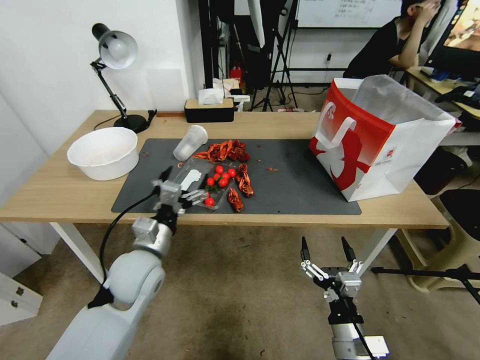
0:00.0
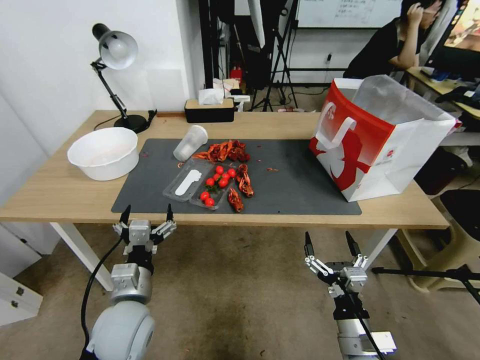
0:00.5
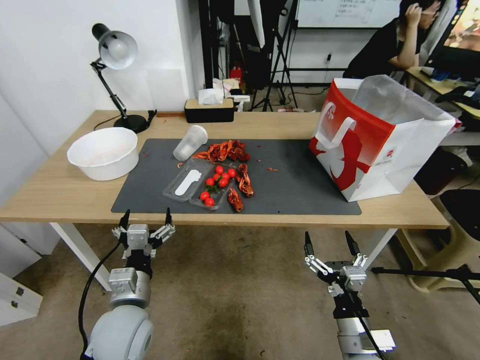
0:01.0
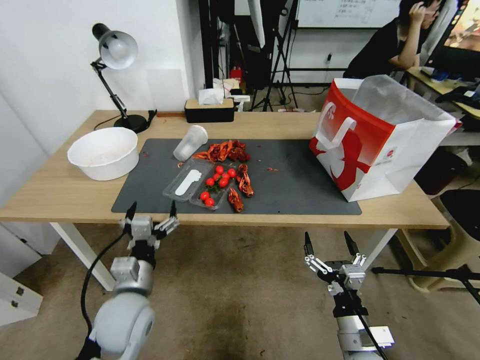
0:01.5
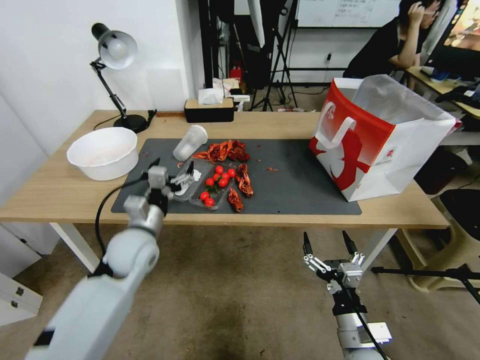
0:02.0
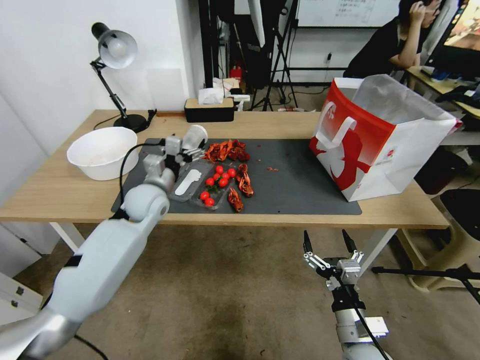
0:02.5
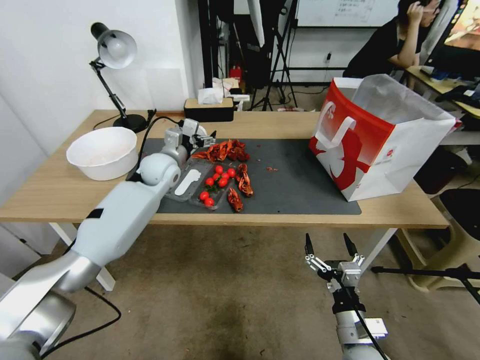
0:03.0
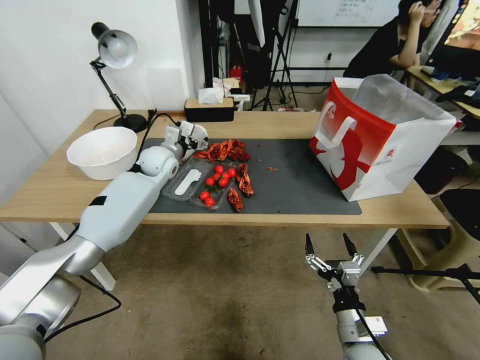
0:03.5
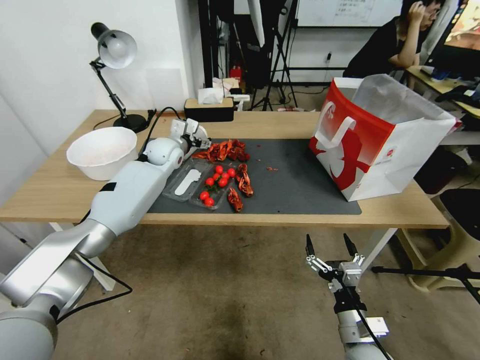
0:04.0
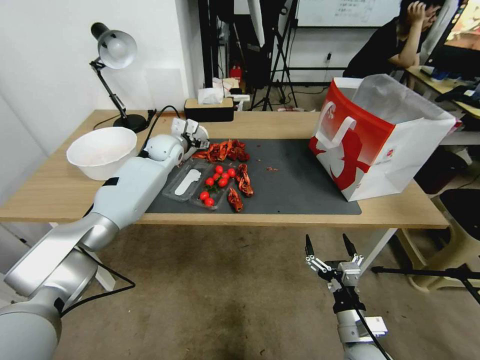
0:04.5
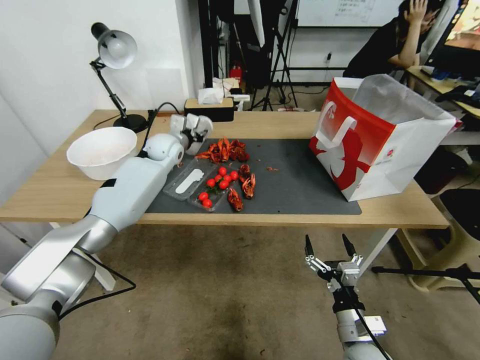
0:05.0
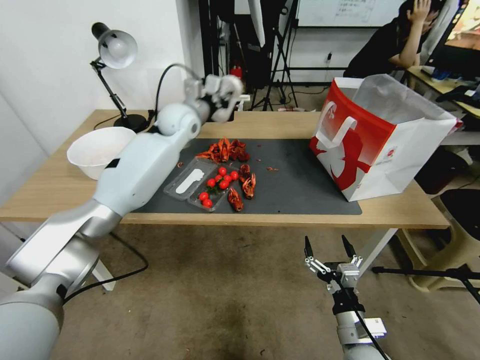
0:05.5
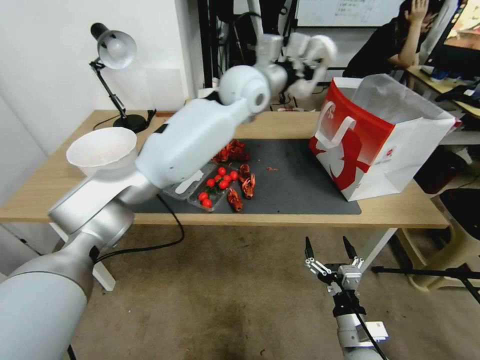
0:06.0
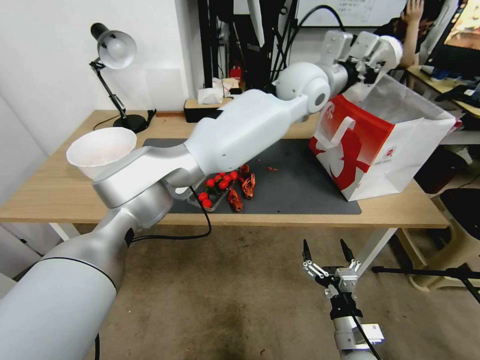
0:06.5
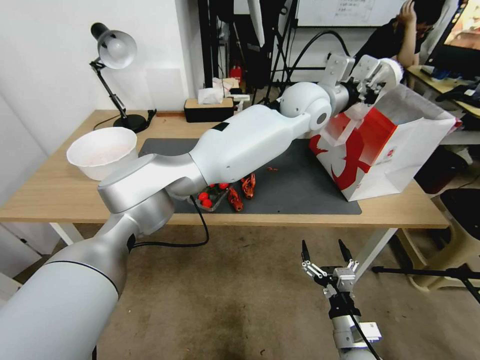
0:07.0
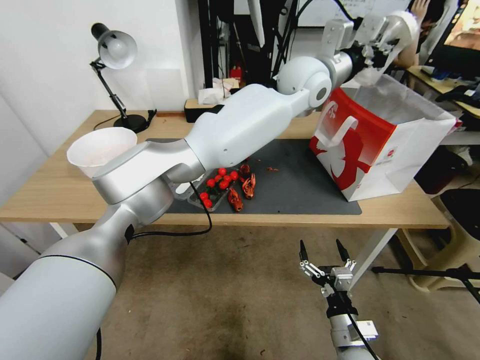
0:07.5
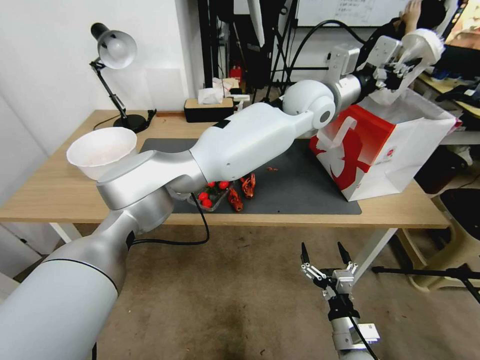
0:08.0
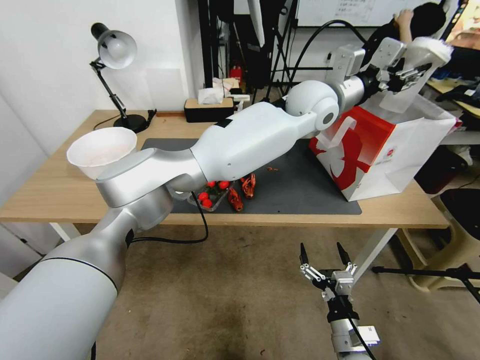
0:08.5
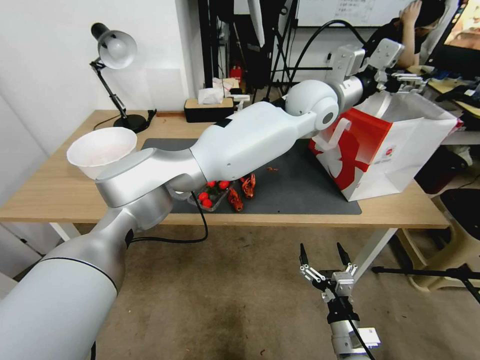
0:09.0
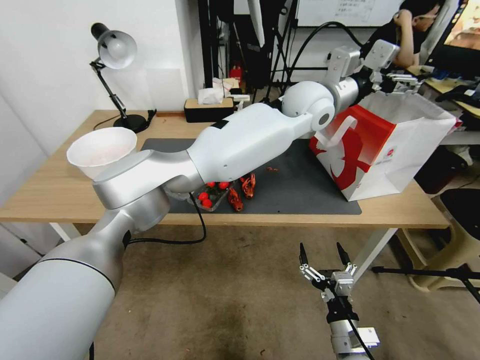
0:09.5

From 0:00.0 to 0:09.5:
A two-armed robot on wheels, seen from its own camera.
From 0:00.0 to 0:02.0: The left gripper shifts about 5 cm forward.
From 0:02.0 to 0:04.0: The left gripper travels forward by about 25 cm.
From 0:04.0 to 0:05.5: The left gripper shifts about 10 cm upward, and closes its fingers.
From 0:05.5 to 0:07.5: The left gripper moves to the right, about 30 cm.
From 0:07.5 to 0:09.5: The left gripper opens.

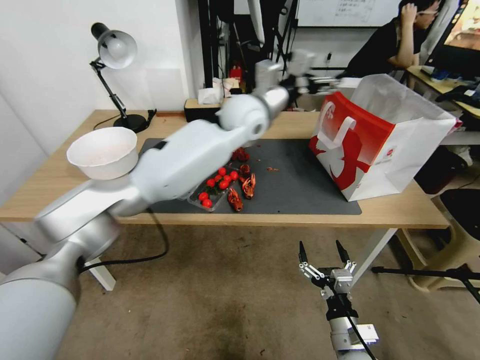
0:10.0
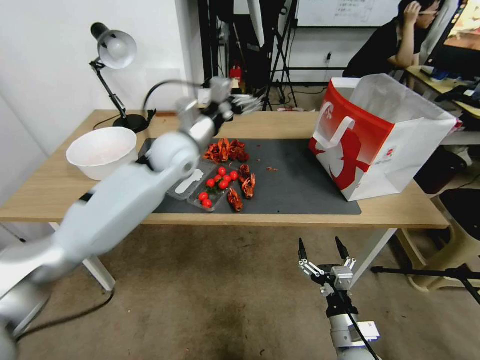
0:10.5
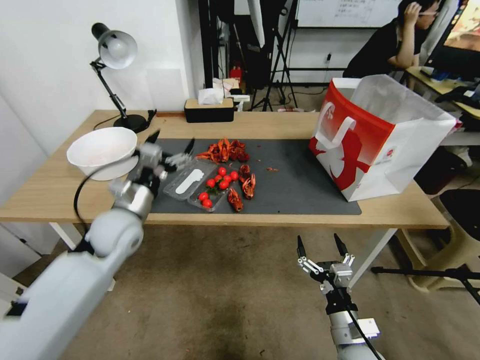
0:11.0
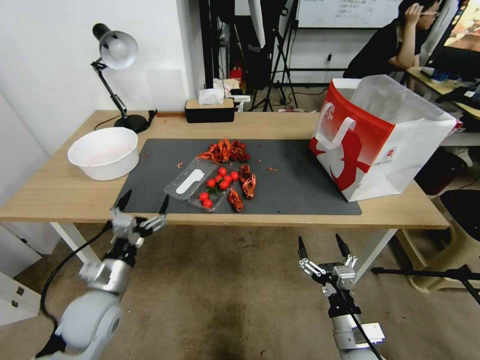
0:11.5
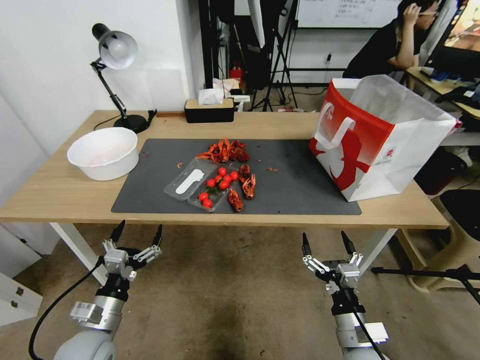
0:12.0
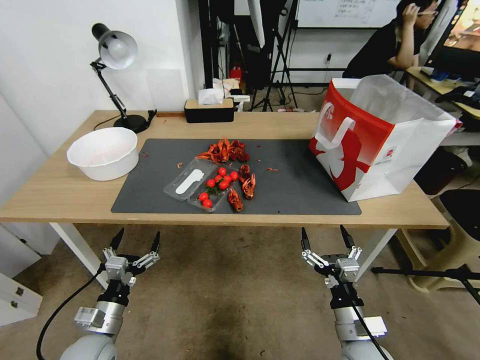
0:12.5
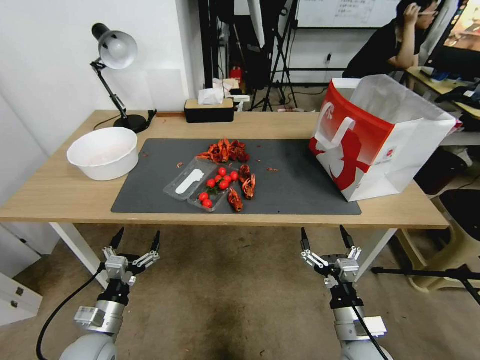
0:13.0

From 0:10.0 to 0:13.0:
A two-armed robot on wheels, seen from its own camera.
From 0:10.0 to 0:11.5: The left gripper travels to the left, backward and downward by roughly 60 cm.
From 0:11.5 to 0:13.0: The left gripper travels downward and backward by about 10 cm.

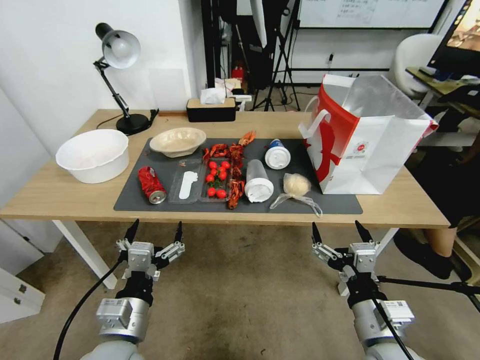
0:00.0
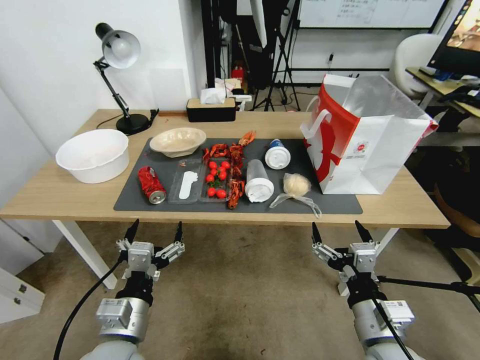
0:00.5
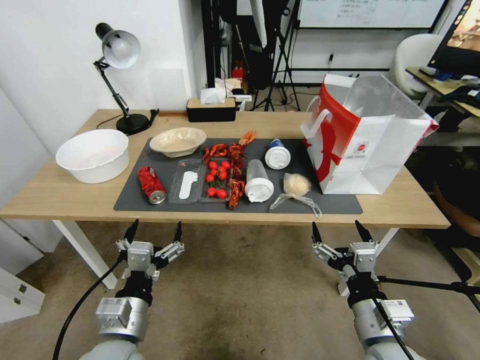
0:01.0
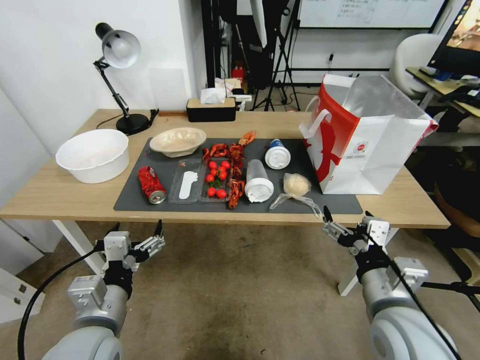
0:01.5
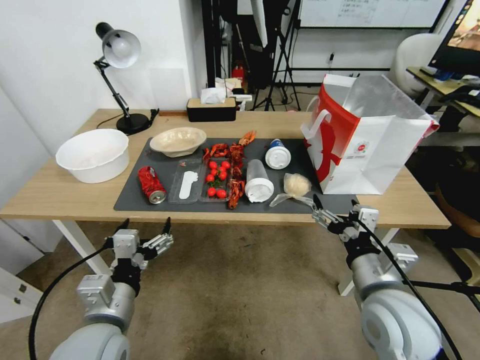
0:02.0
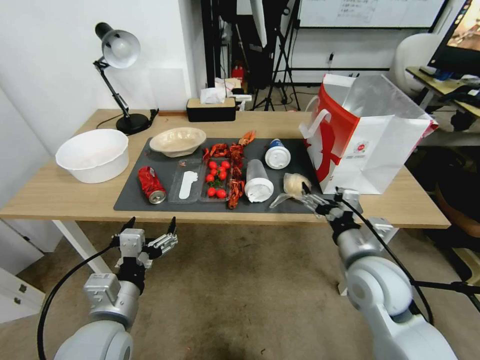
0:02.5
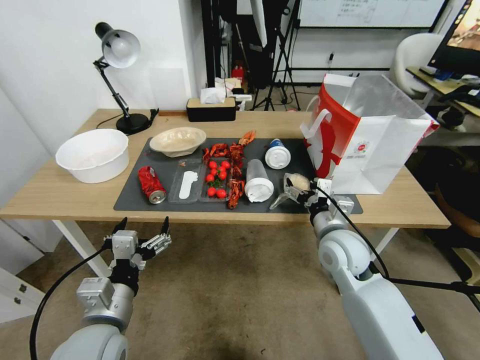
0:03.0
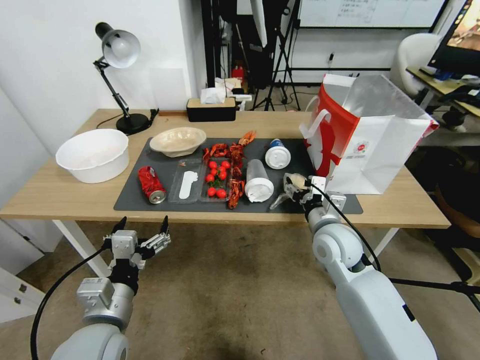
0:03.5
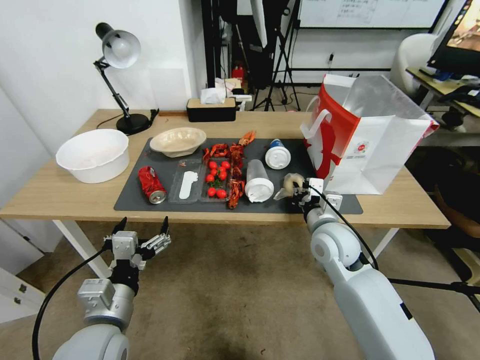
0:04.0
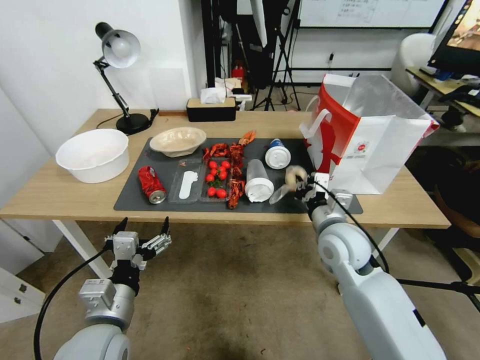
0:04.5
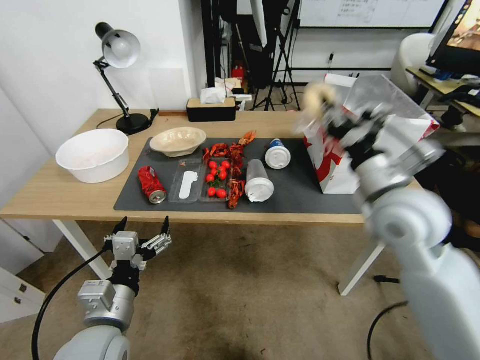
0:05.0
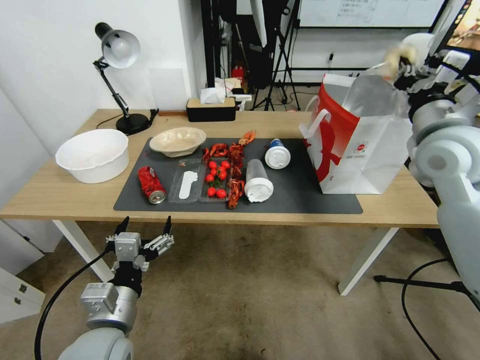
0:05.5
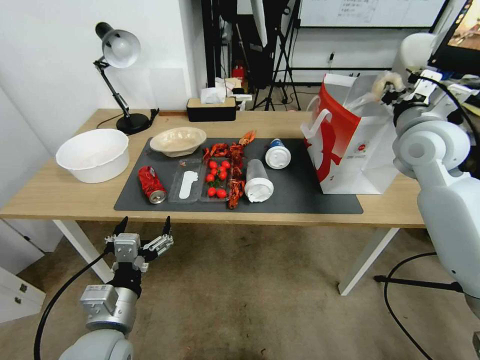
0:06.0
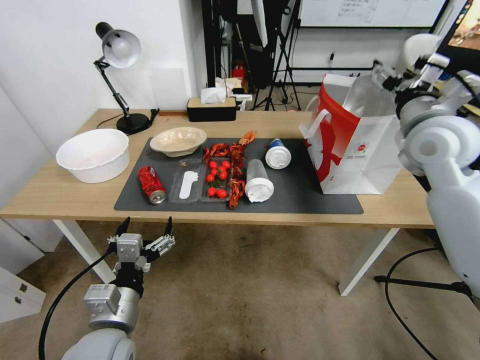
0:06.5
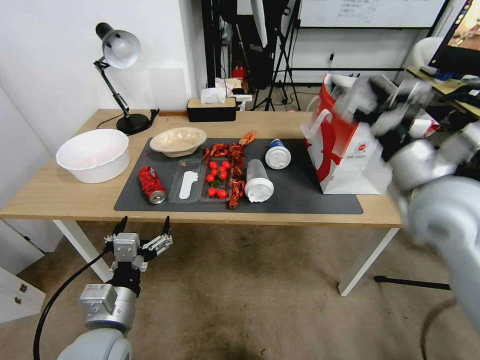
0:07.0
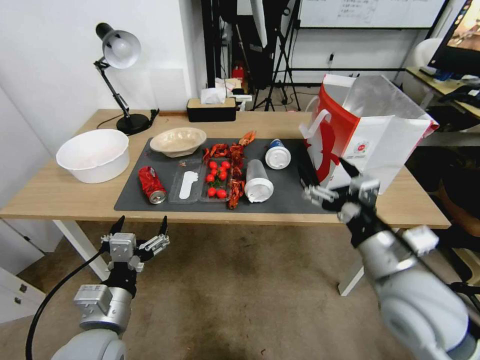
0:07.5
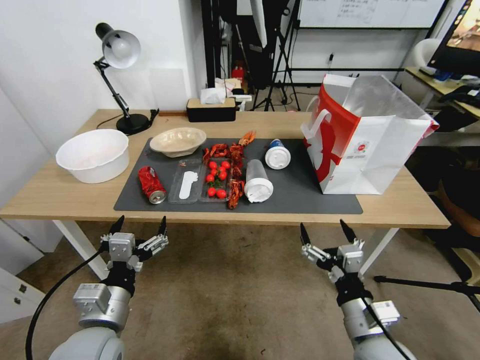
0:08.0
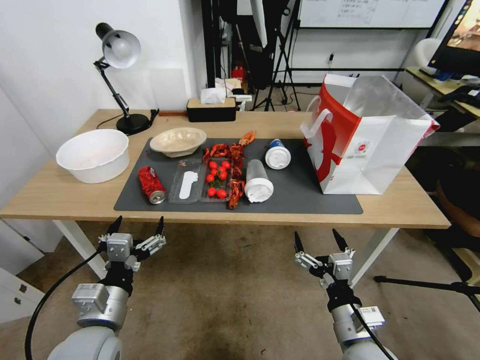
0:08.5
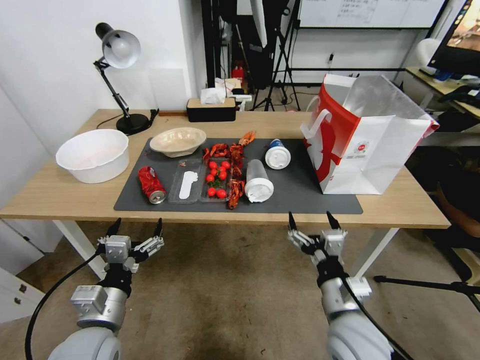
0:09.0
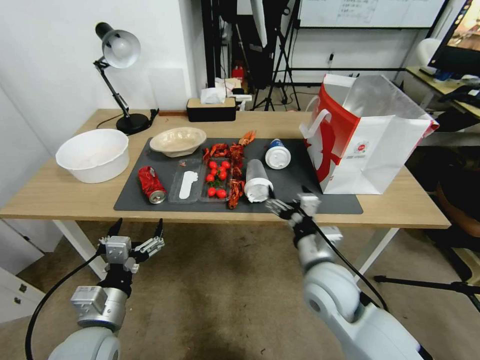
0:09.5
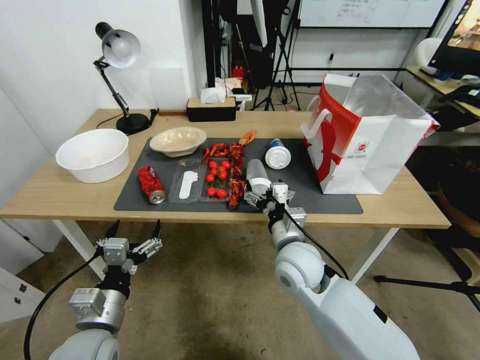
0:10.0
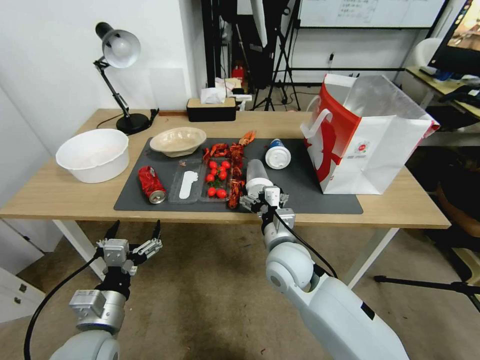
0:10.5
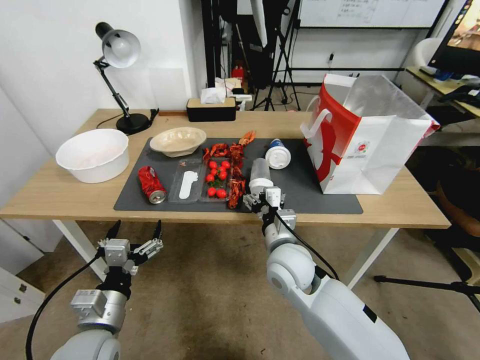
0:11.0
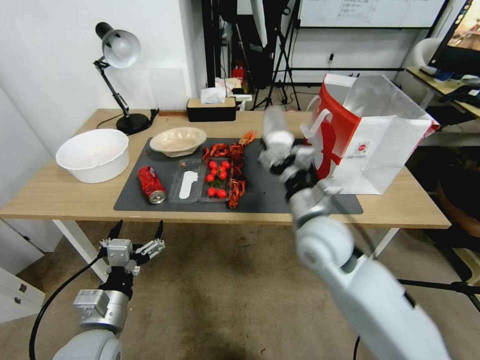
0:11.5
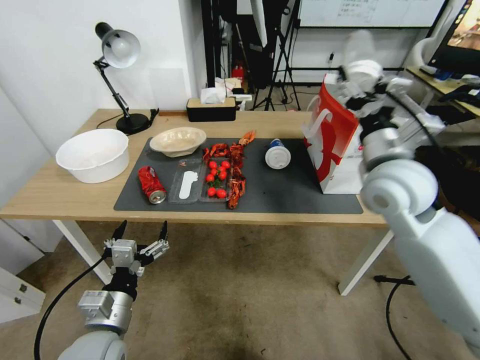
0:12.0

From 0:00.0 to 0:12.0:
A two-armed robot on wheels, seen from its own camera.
From 0:02.0 to 0:04.0: The right gripper is displaced forward by some 15 cm, and closes up.
From 0:04.0 to 0:06.0: The right gripper heads upward and to the right, covering about 25 cm.
From 0:06.0 to 0:08.0: The right gripper moves backward and downward, about 35 cm, and opens up.
From 0:08.0 to 0:10.0: The right gripper travels forward and to the left by about 20 cm.
From 0:10.0 to 0:12.0: The right gripper heads upward and to the right, covering approximately 25 cm.

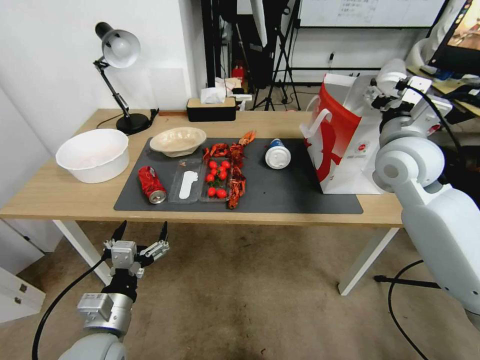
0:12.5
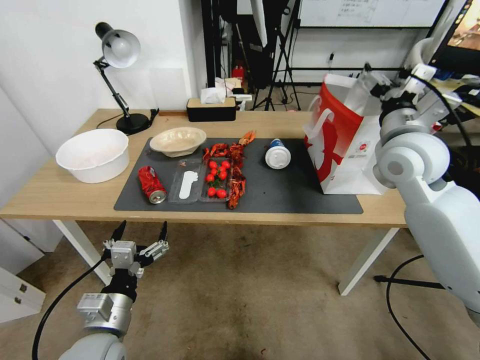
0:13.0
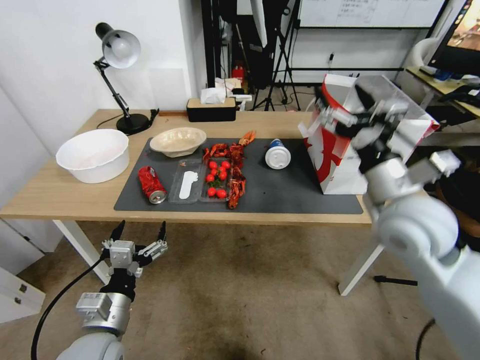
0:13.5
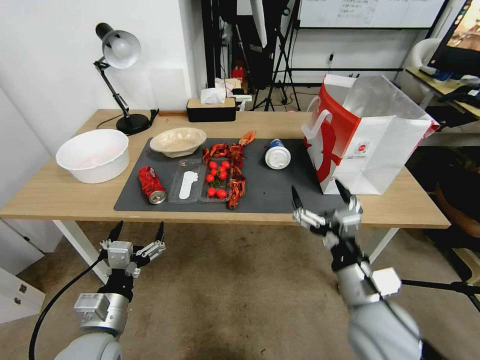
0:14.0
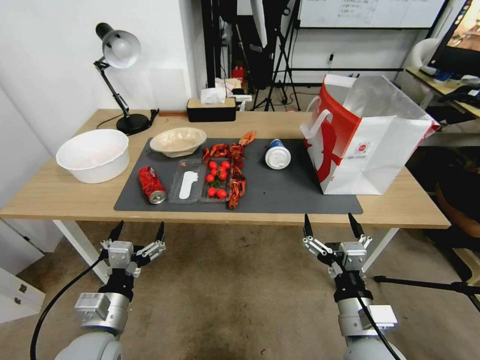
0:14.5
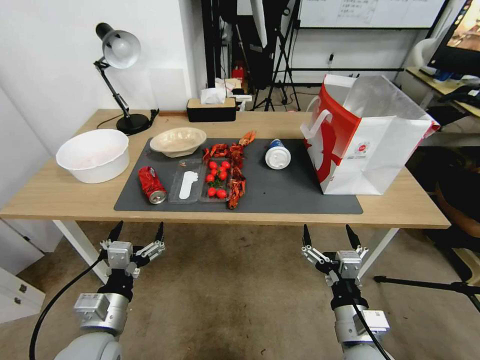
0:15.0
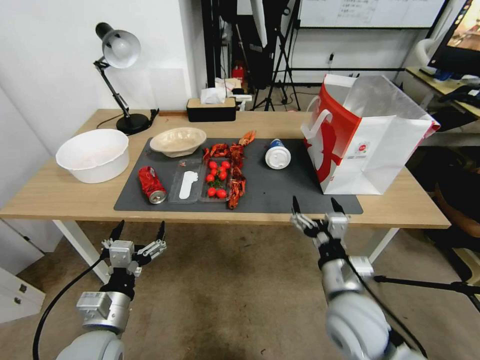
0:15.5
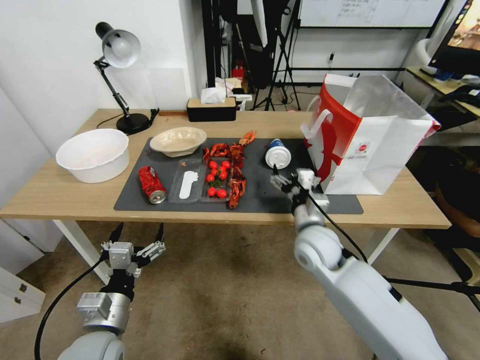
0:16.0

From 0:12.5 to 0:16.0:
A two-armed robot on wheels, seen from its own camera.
From 0:12.5 to 0:14.5: The right gripper goes about 35 cm backward and downward.
From 0:14.5 to 0:16.0: The right gripper heads forward, covering roughly 20 cm.
